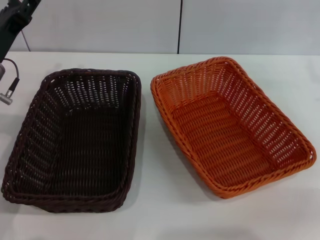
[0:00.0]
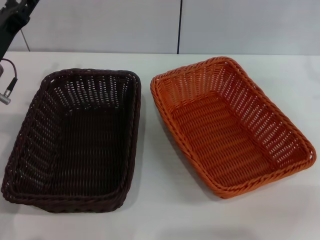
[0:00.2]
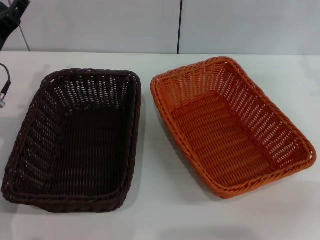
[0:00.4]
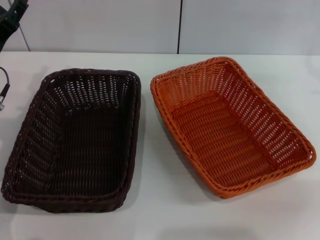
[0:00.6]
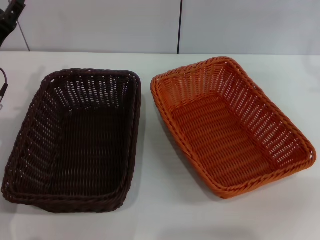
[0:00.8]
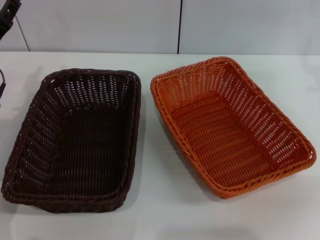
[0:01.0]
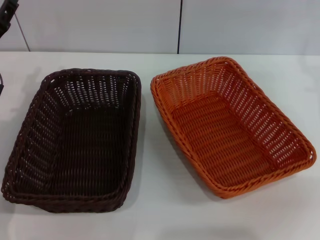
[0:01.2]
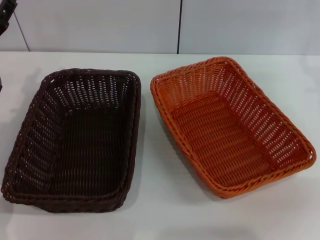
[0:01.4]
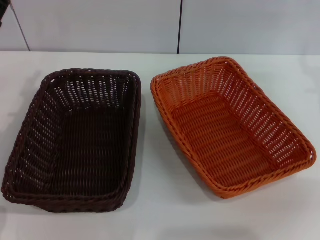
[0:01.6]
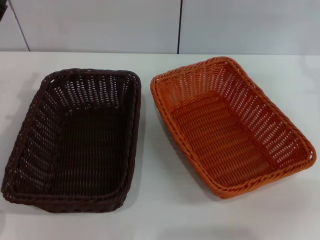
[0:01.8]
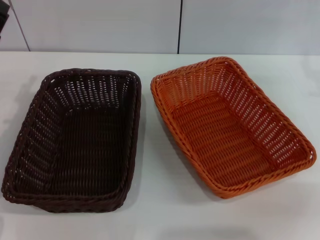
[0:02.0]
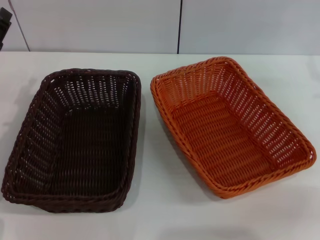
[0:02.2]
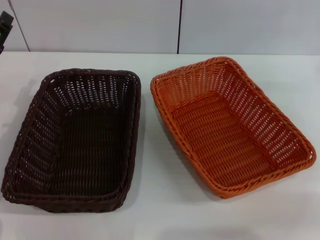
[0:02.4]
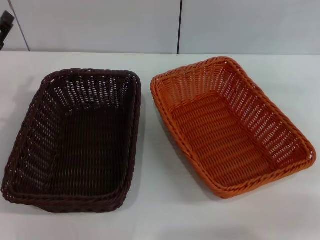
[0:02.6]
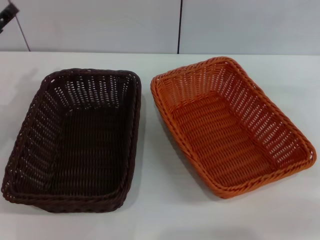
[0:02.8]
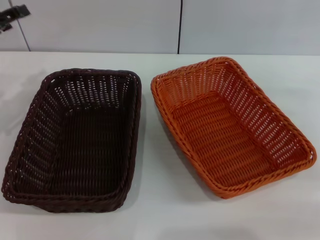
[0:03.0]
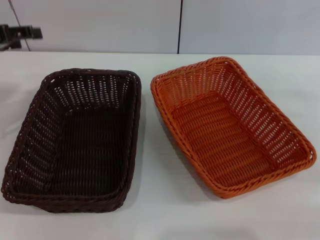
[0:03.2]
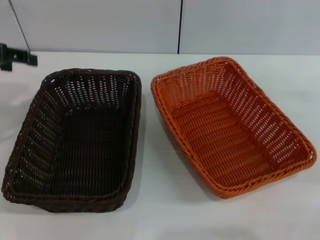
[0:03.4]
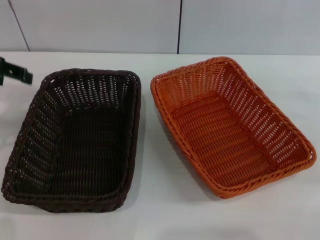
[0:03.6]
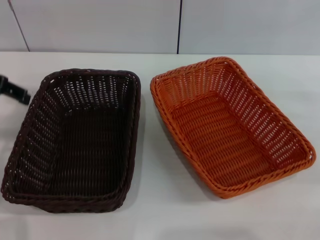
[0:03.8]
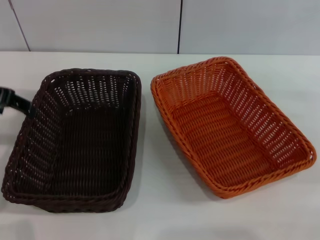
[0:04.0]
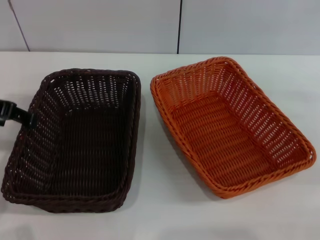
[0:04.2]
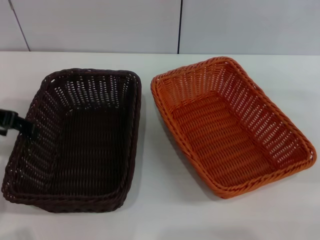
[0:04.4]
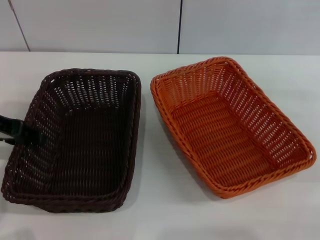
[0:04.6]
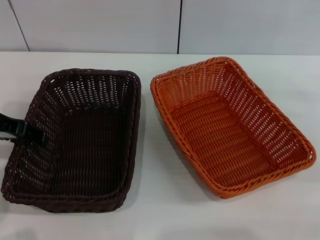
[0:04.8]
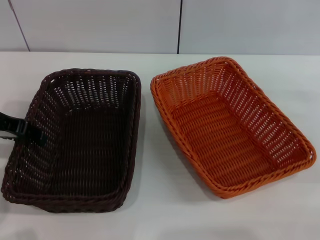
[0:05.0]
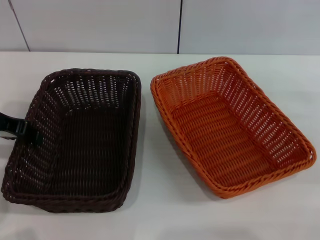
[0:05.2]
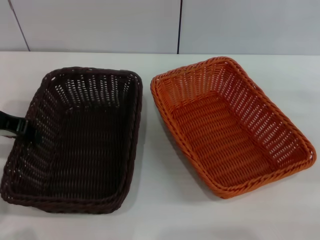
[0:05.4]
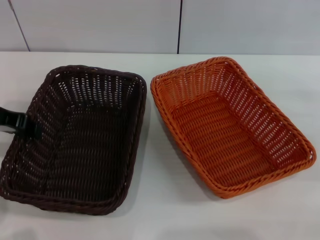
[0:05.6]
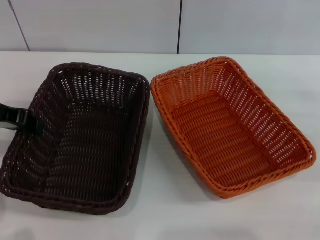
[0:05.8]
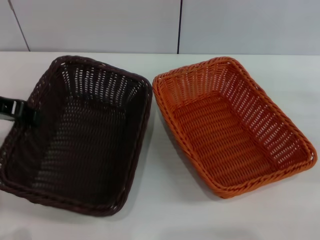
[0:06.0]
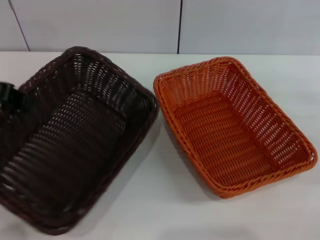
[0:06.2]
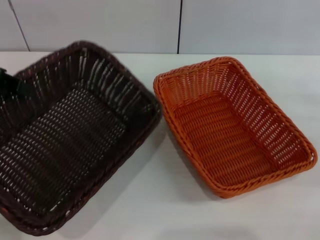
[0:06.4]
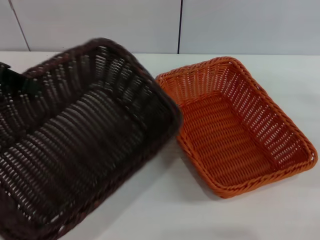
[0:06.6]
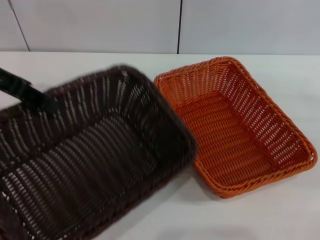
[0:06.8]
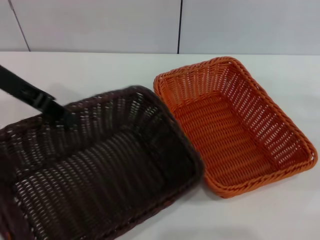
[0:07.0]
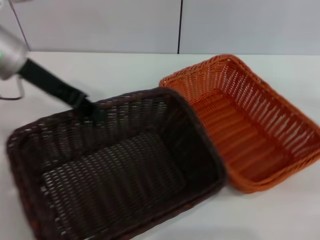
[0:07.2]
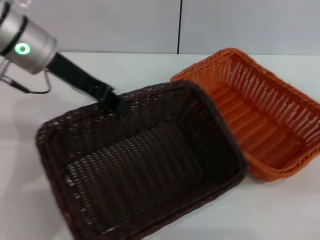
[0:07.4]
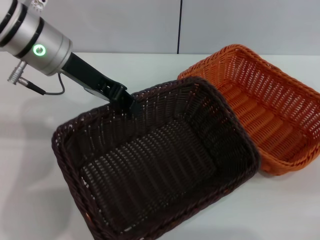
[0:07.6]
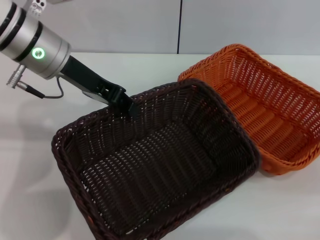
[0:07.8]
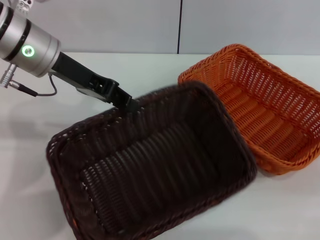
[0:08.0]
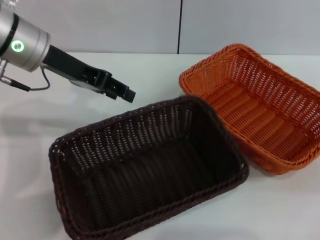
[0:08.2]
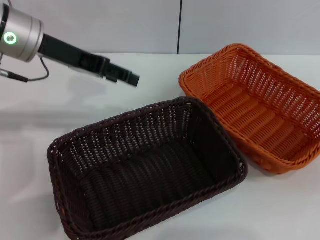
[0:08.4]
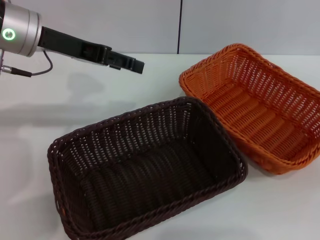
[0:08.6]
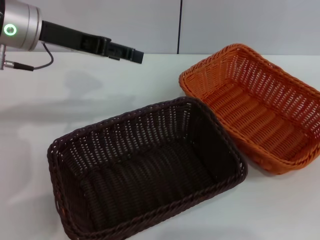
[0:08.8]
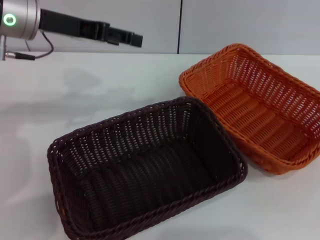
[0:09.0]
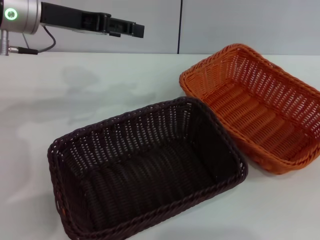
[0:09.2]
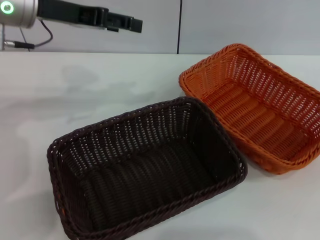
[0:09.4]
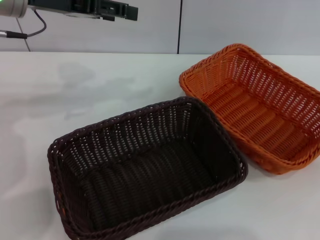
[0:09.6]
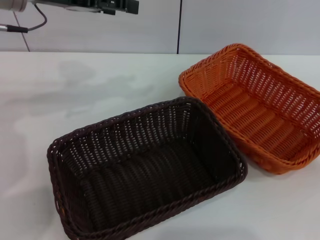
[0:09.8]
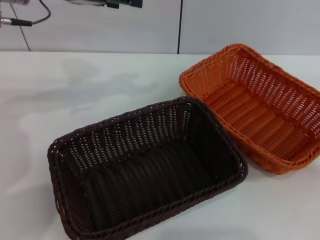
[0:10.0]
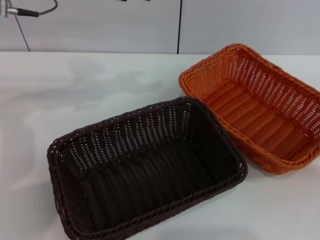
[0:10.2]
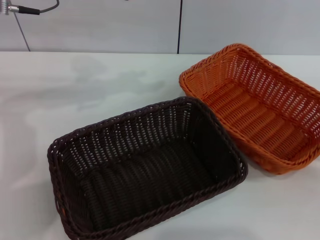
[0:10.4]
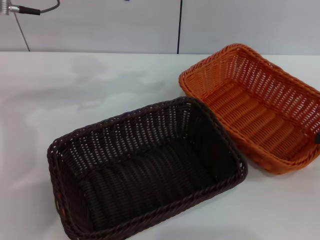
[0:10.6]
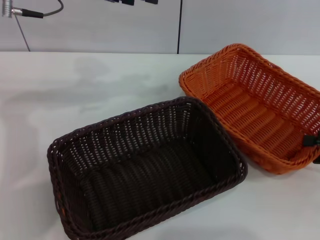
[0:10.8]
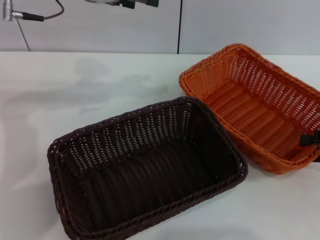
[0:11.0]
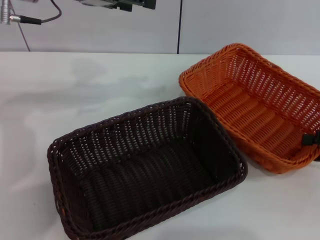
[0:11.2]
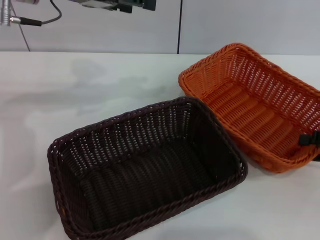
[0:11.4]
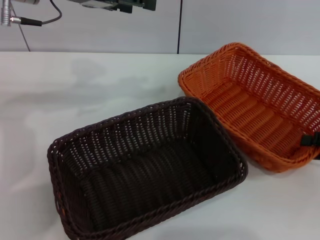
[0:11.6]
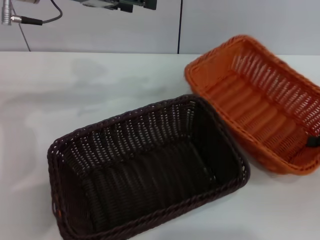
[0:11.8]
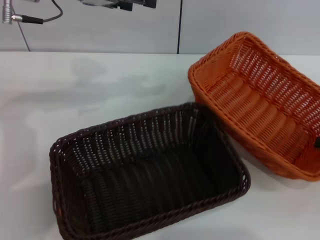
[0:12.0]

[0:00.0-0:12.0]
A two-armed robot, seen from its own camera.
Step, 0:00.0 to 0:06.0: Pick up the dark basket with the left gripper.
Step, 0:06.4 to 0:08.2: Place the dark basket in the center of view with the left gripper.
0:00.0 to 0:01.6: The grippers stay close to where they were, moving slightly.
0:01.6 to 0:03.0: The left gripper is displaced upward and to the left by about 10 cm.
0:03.0 to 0:04.4: The left gripper moves some 5 cm.
0:04.4 to 0:06.0: The left gripper closes its fingers.
0:06.0 to 0:07.6: The left gripper heads to the right and forward, covering some 15 cm.
0:07.6 to 0:09.0: The left gripper opens its fingers. Meanwhile the right gripper moves upward and to the right, roughly 15 cm.
0:09.0 to 0:10.4: The left gripper ends up roughly 5 cm from where it was. The right gripper goes about 5 cm downward.
0:10.4 to 0:12.0: The grippers make only small movements.

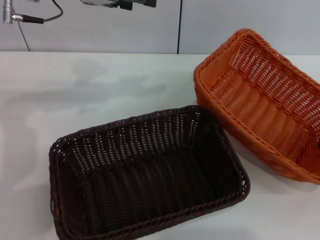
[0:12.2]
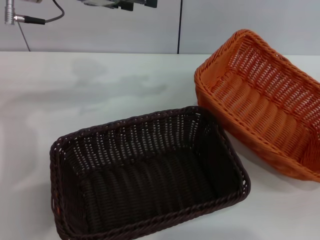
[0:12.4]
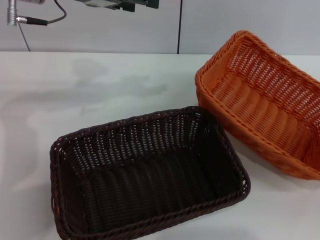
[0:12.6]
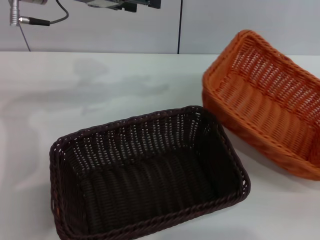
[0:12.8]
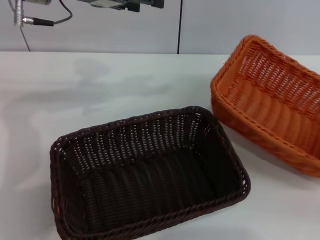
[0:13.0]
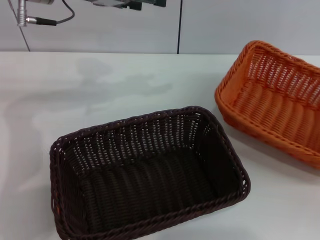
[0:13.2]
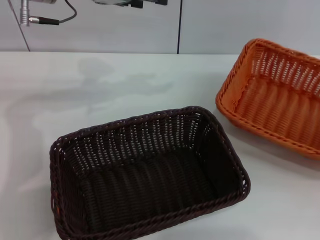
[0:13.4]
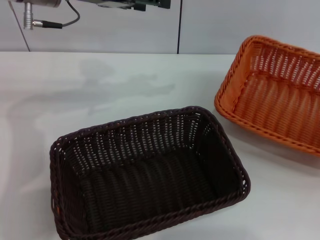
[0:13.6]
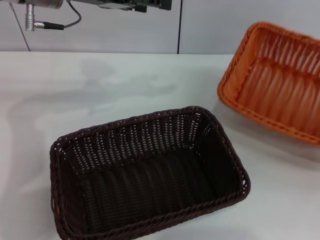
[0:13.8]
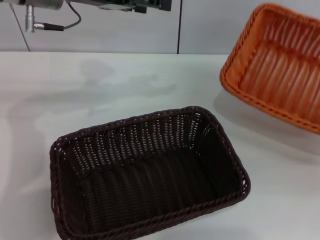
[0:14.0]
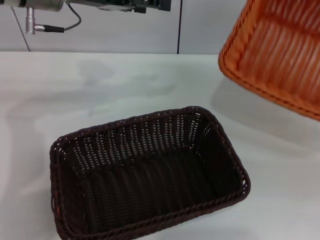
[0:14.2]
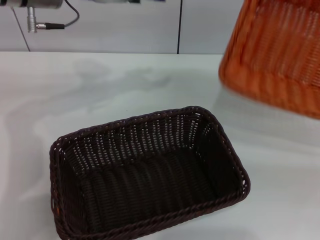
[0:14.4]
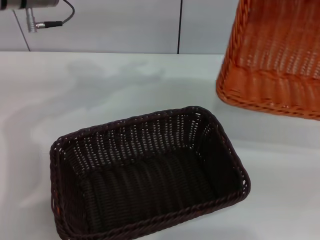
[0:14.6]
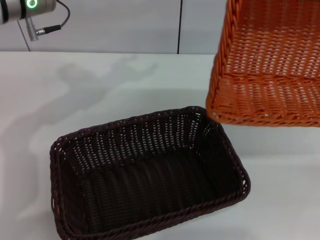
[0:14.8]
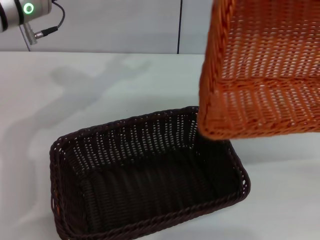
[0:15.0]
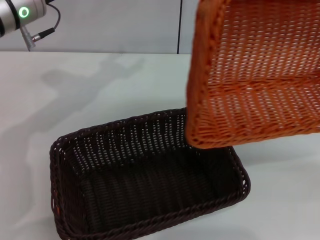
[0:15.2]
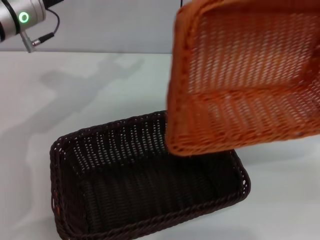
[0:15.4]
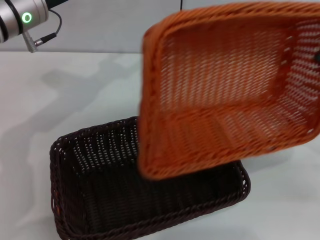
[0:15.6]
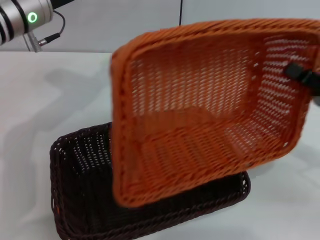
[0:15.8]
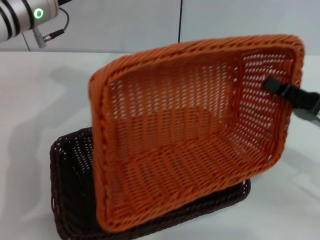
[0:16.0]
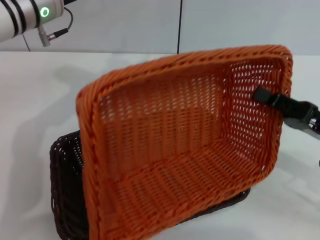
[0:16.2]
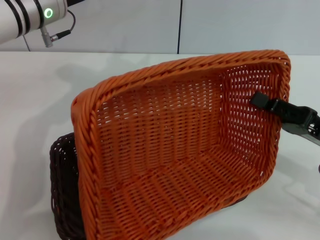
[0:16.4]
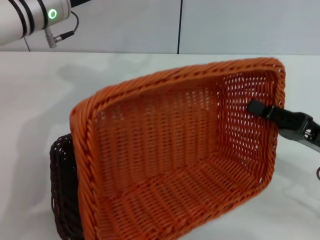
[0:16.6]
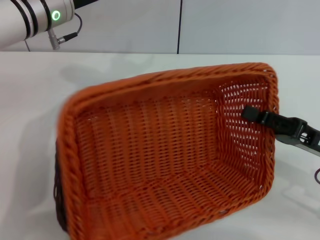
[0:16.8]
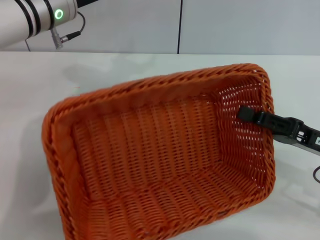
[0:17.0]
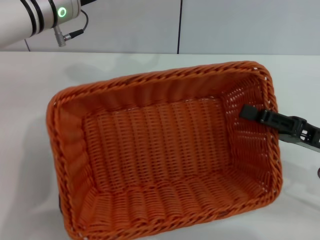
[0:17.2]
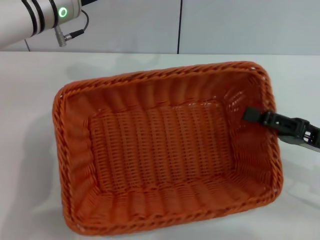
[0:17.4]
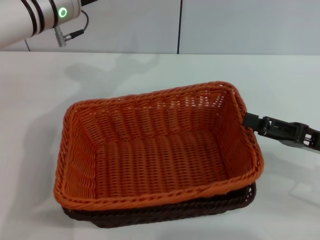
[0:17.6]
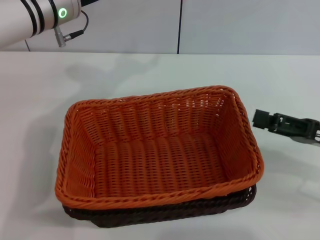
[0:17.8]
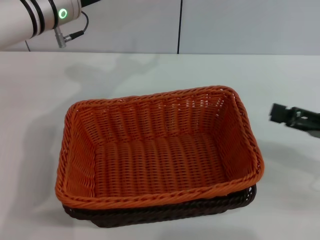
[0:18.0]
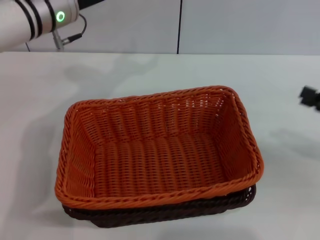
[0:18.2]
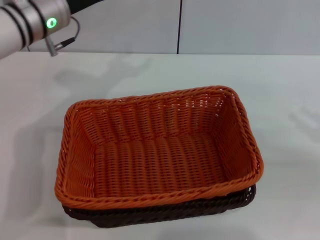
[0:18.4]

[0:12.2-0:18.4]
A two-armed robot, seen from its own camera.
Step, 0:12.4 to 0:17.6: Place the light basket on the dark basket with the right gripper.
0:12.2 to 0:13.8: The right gripper closes.
0:13.8 to 0:15.4: The left gripper travels downward by roughly 5 cm. The right gripper goes about 5 cm to the left.
0:15.4 to 0:16.8: The right gripper is displaced to the left and downward by about 10 cm.
0:16.8 to 0:18.4: The right gripper goes roughly 10 cm to the right, and opens.
